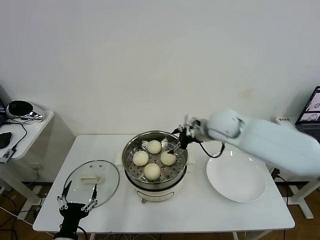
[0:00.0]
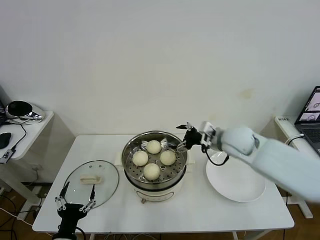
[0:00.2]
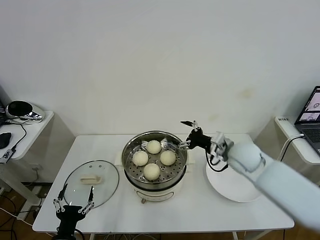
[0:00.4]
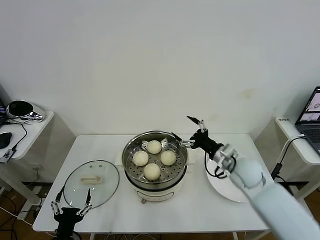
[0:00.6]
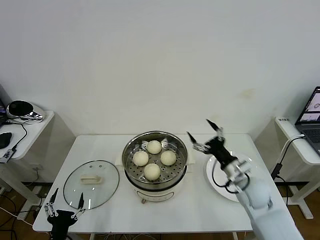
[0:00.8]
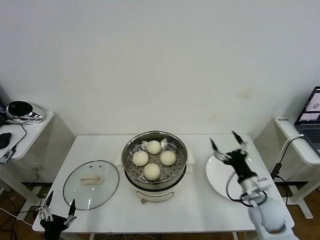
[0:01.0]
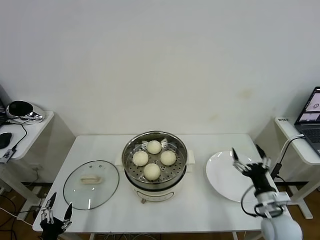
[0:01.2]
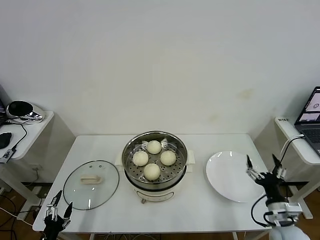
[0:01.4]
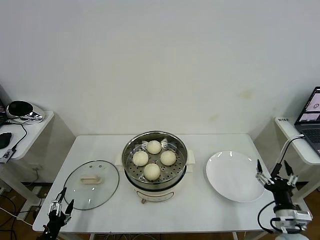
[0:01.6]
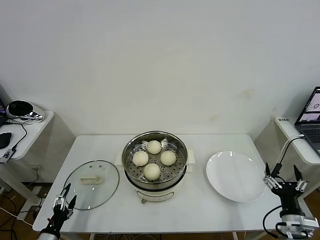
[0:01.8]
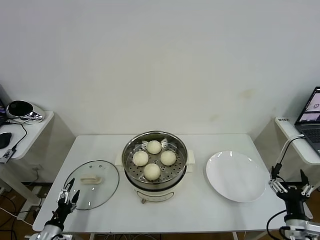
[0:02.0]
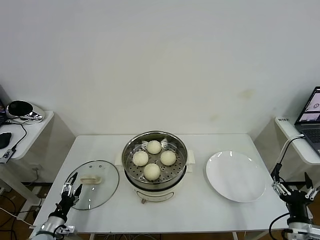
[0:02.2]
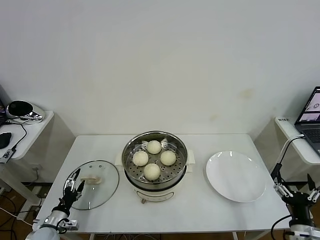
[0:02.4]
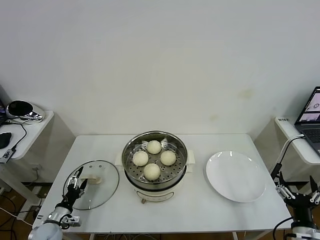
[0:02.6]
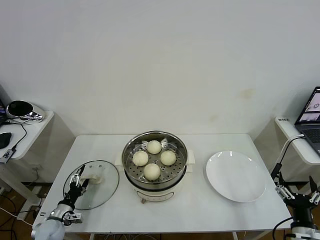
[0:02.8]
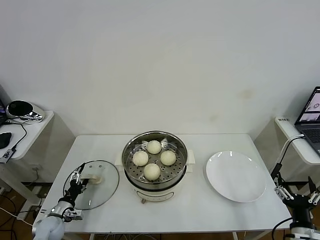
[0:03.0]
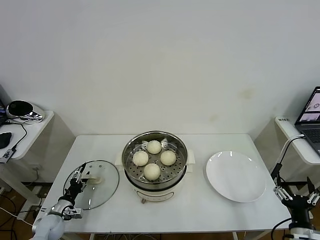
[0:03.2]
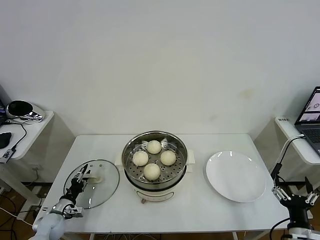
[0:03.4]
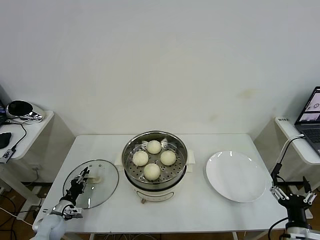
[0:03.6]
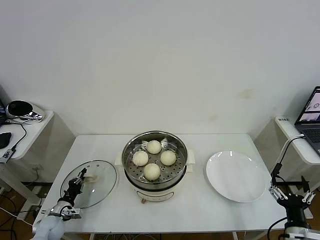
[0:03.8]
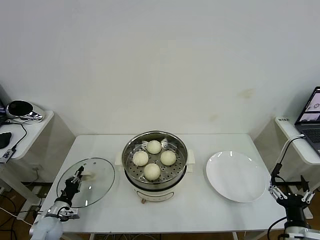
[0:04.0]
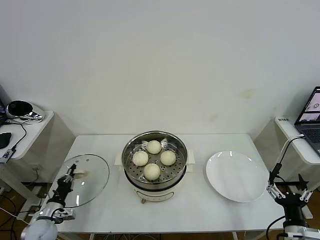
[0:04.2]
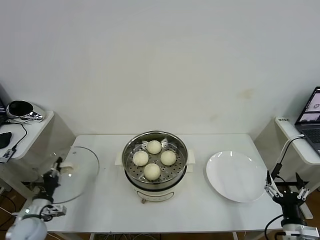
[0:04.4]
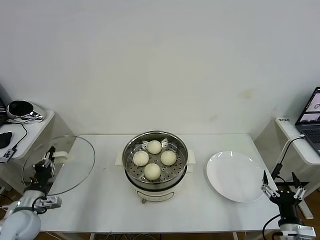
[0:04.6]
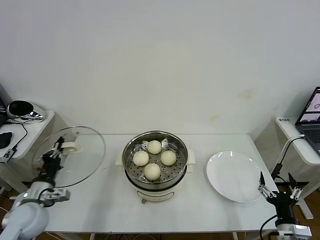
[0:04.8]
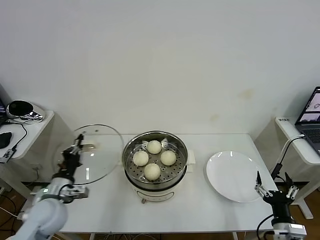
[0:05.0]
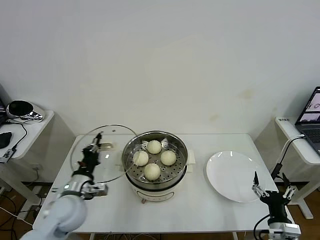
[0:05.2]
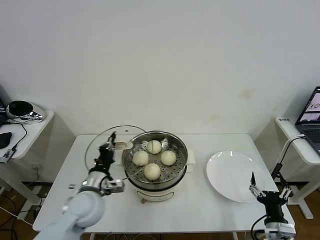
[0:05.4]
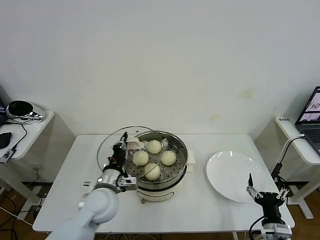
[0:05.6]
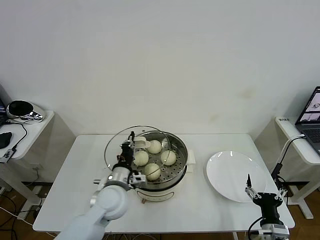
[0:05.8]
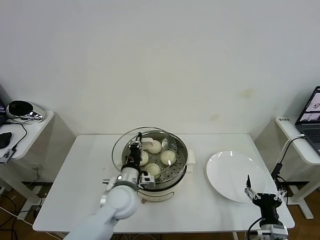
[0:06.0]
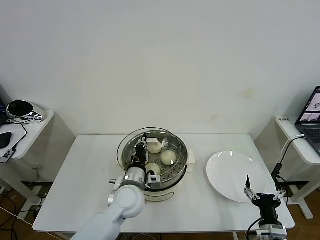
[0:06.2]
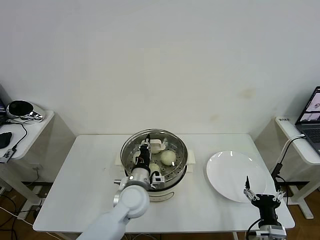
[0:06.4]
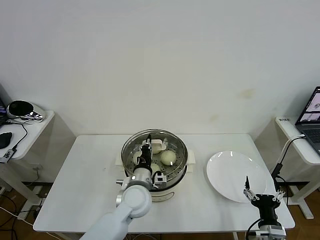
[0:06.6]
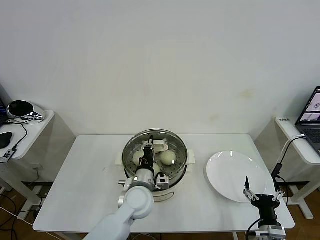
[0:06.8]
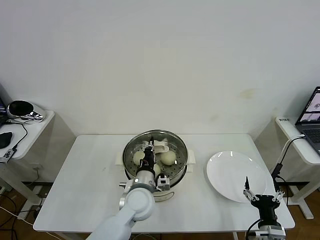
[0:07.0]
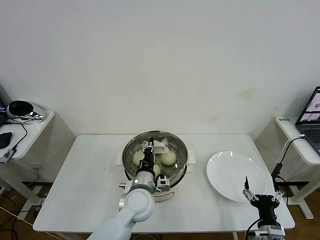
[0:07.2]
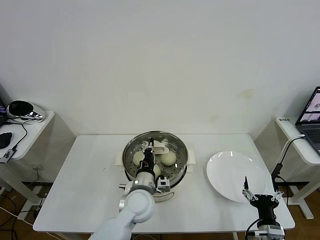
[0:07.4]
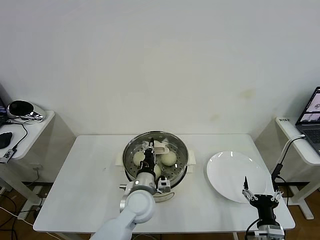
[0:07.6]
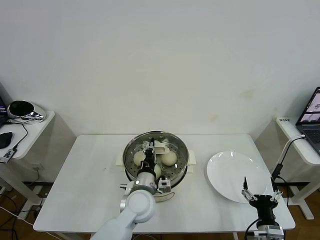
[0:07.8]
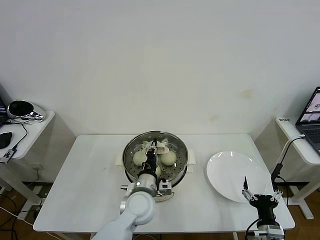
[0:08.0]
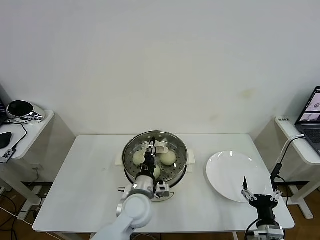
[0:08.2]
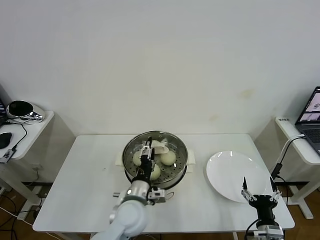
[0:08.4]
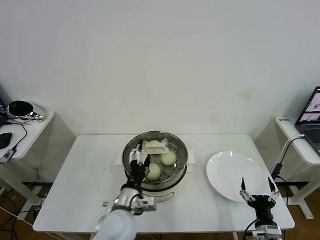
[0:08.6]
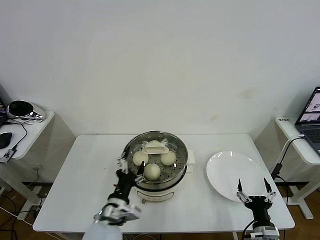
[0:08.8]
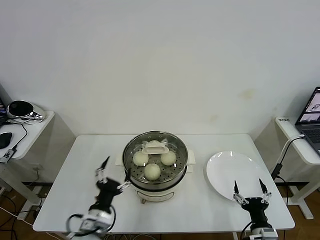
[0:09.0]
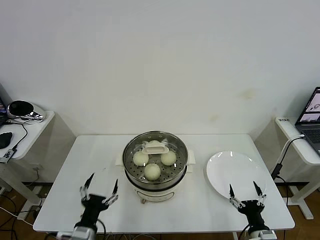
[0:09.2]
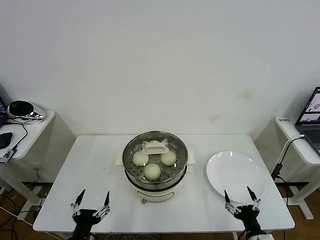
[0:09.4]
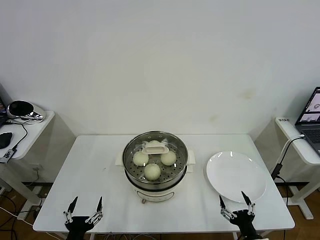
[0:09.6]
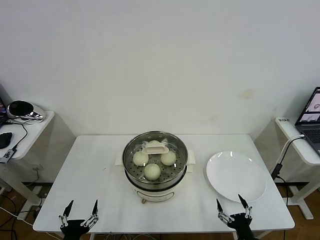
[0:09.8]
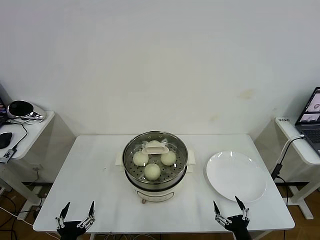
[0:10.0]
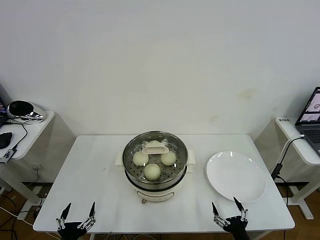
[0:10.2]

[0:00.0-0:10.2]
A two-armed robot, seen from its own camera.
Task of the whole recording: take steamed baozi put them in steamer then cover it.
Step, 0:00.0 to 0:03.8: Grasp the pot lid with left gripper.
Step, 0:04.0 to 0:08.6: Place the pot lid on the steamer with left gripper.
0:00.0 to 0:01.4: The left gripper goes roughly 10 cm to the left. Meanwhile the right gripper shifts approximately 40 cm backward, downward and to the right.
0:01.4 to 0:03.0: The right gripper heads backward, covering some 5 cm; the left gripper moves forward, roughly 20 cm.
0:03.0 to 0:04.4: The left gripper moves upward, roughly 5 cm, and closes.
0:04.4 to 0:05.8: The left gripper travels to the right and upward by some 30 cm, while the right gripper shifts by approximately 5 cm.
0:05.8 to 0:07.2: The left gripper shifts about 10 cm to the right.
0:07.2 to 0:08.8: The left gripper shifts some 10 cm backward and to the left, and opens.
0:08.8 to 0:10.2: The right gripper ends up roughly 5 cm from where it was, while the left gripper shifts roughly 25 cm to the left, backward and downward.

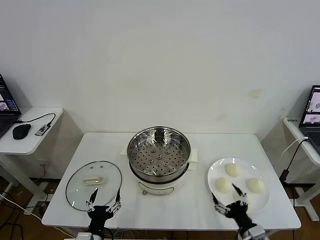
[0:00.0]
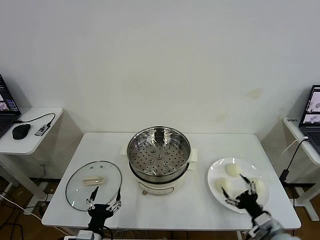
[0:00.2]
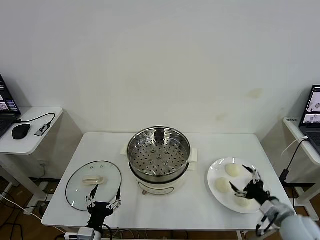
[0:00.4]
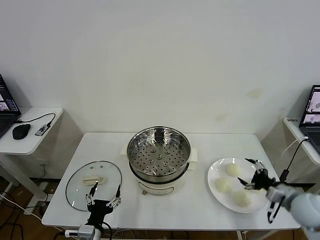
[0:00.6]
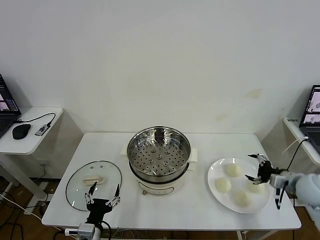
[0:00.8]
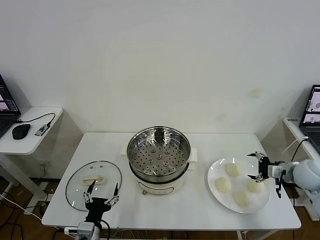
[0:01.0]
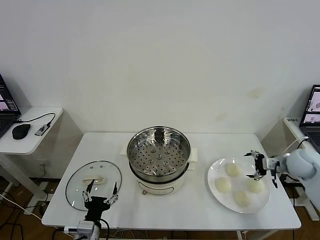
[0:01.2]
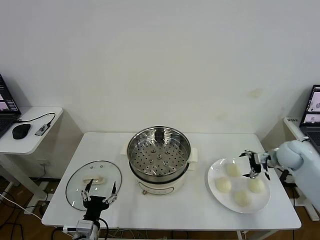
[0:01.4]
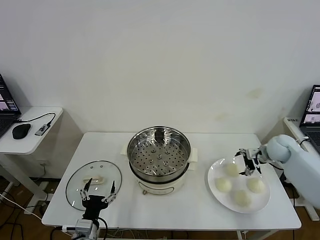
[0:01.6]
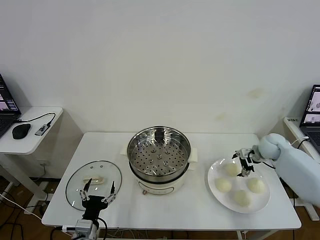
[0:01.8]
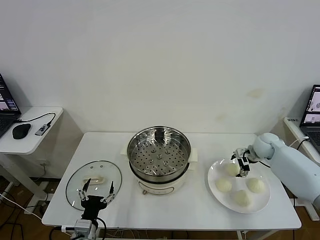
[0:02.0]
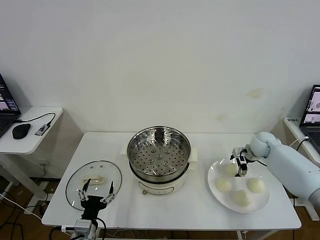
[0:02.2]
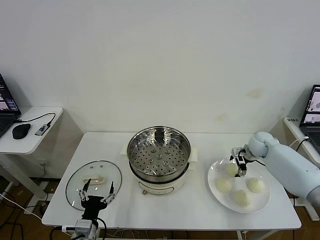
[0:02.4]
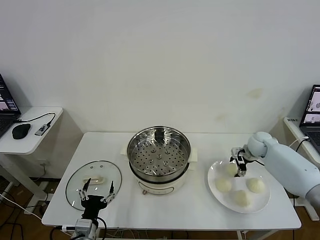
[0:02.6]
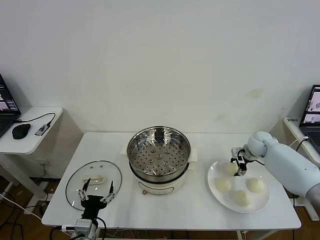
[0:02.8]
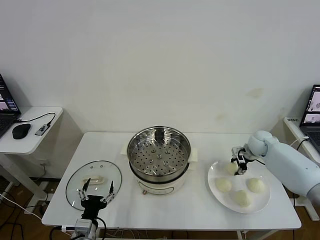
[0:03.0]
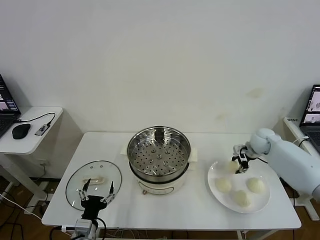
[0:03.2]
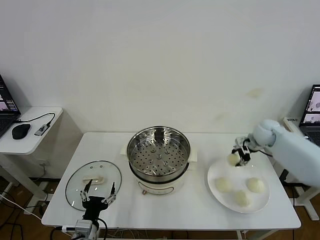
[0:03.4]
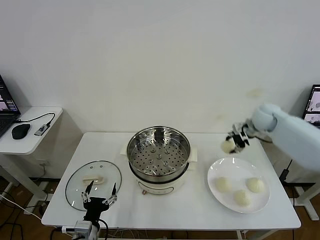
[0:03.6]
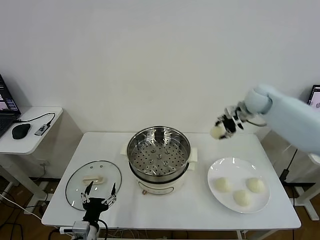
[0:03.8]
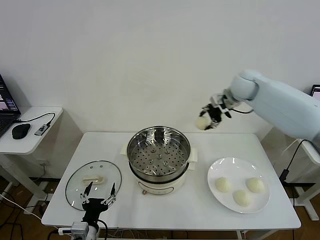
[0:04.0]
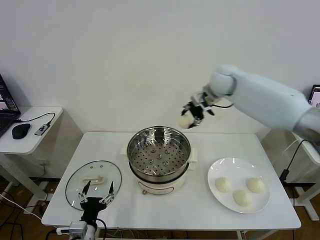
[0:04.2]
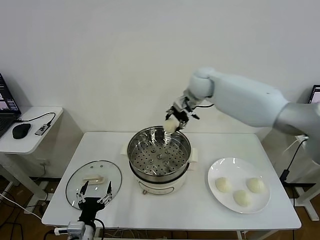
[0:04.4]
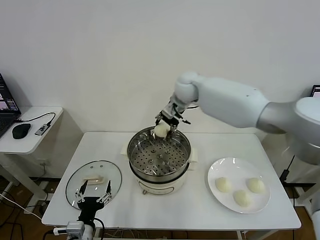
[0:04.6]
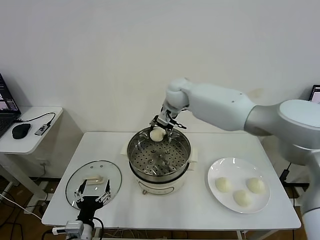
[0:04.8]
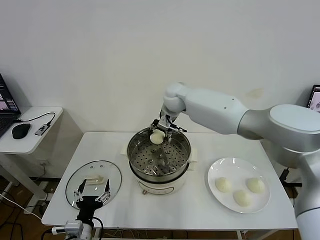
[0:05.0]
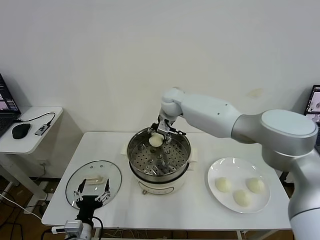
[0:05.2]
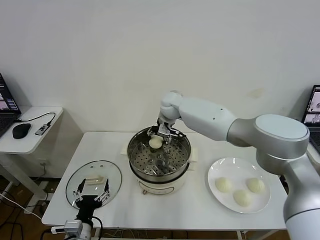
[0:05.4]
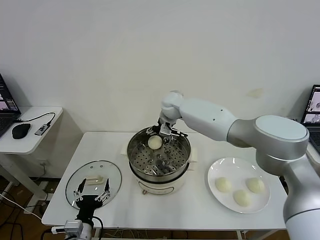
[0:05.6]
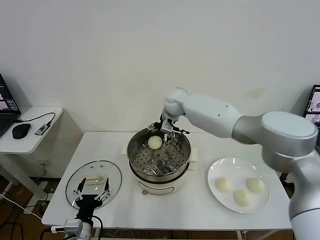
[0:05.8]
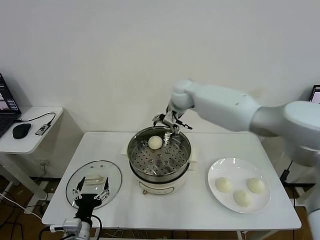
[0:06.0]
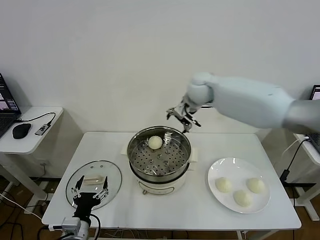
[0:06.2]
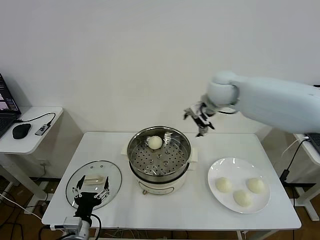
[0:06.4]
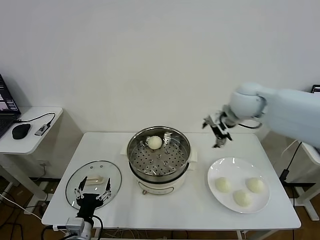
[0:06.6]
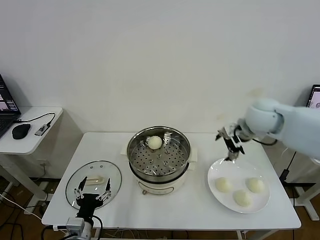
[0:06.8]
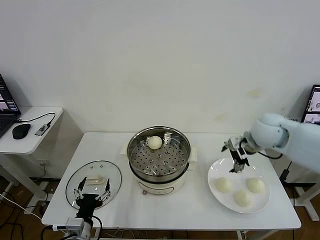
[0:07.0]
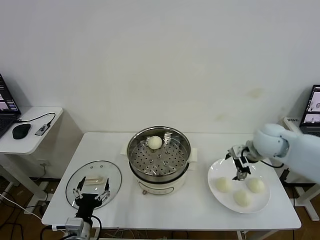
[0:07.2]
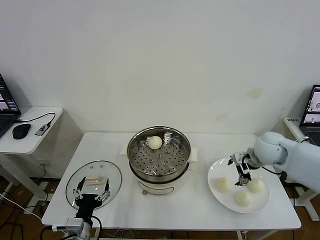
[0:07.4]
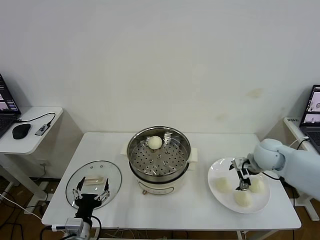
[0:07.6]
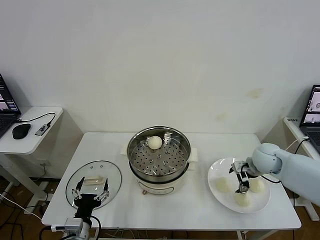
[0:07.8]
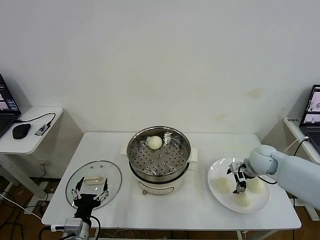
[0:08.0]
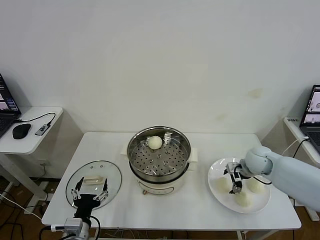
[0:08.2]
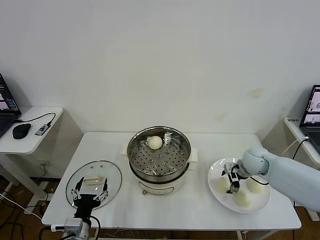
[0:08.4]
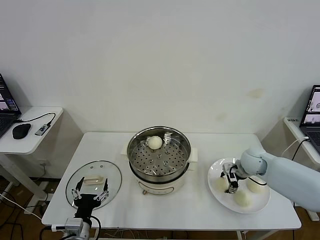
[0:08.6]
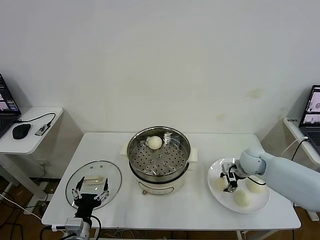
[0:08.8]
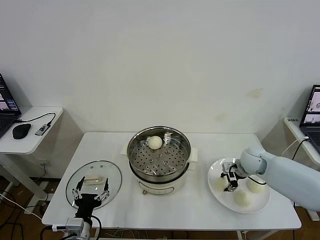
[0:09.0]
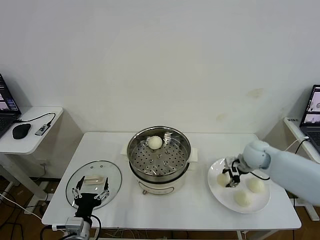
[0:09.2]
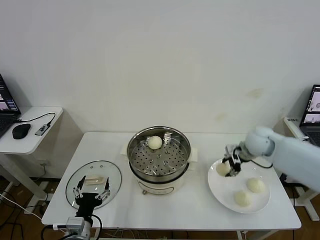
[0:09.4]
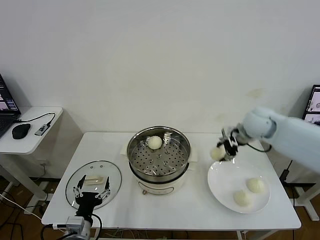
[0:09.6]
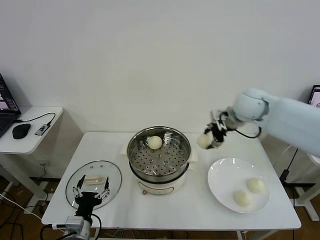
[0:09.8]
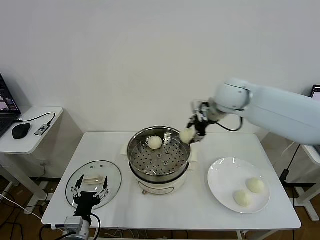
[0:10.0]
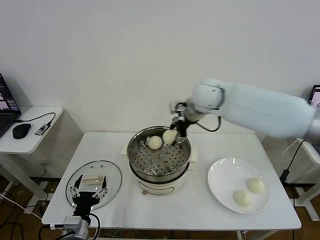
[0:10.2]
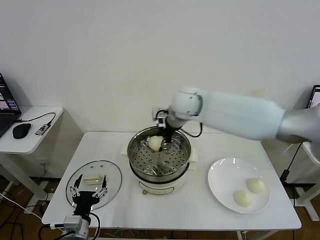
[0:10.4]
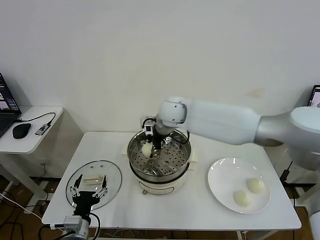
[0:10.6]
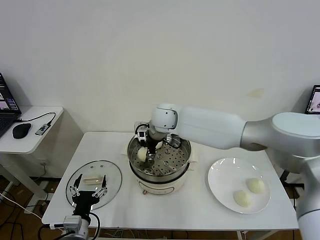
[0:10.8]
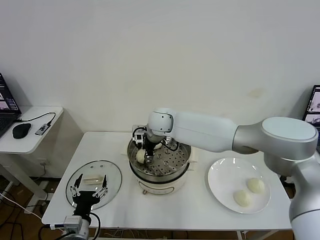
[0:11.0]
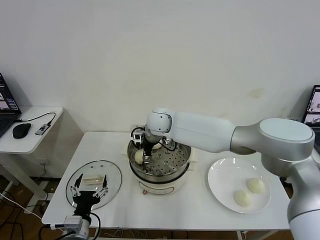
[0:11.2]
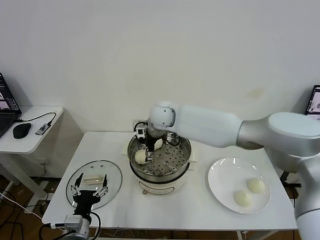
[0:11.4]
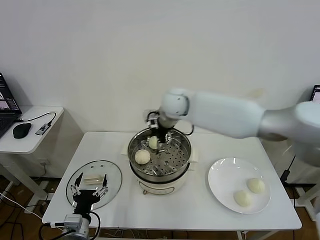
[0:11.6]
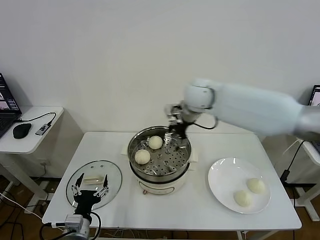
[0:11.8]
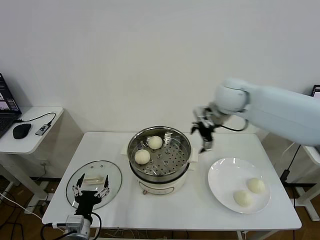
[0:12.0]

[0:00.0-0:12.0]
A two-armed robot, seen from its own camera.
Task of the whole recording: take steamed baozi put them in steamer then cover it.
Step, 0:00.0 to 0:02.8: Grasp the baozi in the plate with right gripper.
Step, 0:03.0 to 0:05.6: Place the baozi on the steamer with right gripper.
Step, 0:06.0 to 0:09.0: Grasp the baozi in the plate with right gripper.
Step, 0:09.2 to 0:11.4: Place the baozi on the steamer with right gripper.
0:01.6 to 0:03.0: The right gripper closes up.
0:03.0 to 0:04.4: The right gripper heads to the left and upward, covering approximately 35 cm.
0:04.4 to 0:06.0: The right gripper reaches about 10 cm downward, then returns, and opens.
0:06.0 to 0:07.6: The right gripper heads to the right, downward and backward, covering approximately 35 cm.
0:07.6 to 0:09.0: The right gripper ends up approximately 5 cm from where it was, and closes up.
0:09.0 to 0:10.4: The right gripper moves to the left and upward, roughly 35 cm.
0:10.4 to 0:12.0: The right gripper shifts some 20 cm to the right, and opens its fingers.
